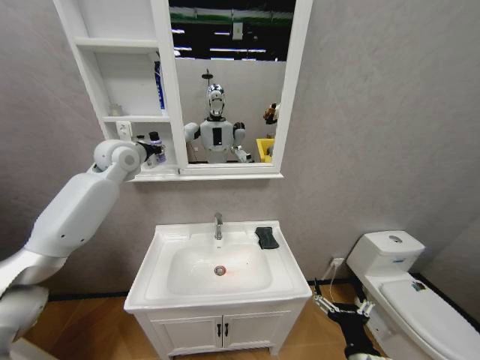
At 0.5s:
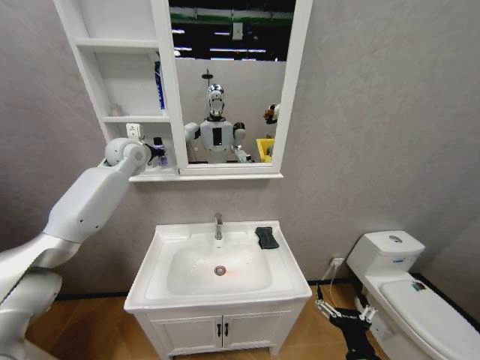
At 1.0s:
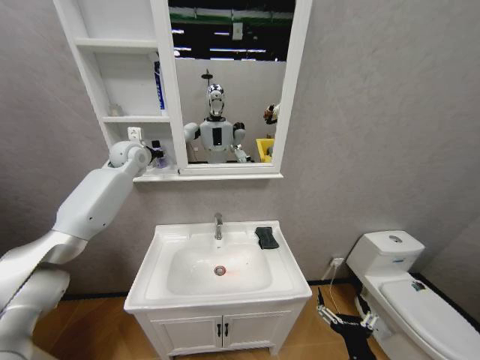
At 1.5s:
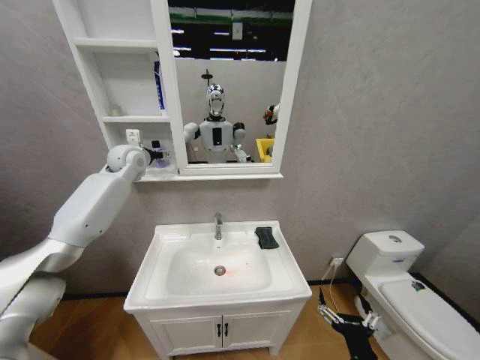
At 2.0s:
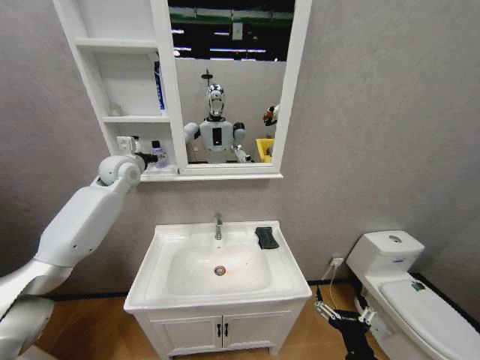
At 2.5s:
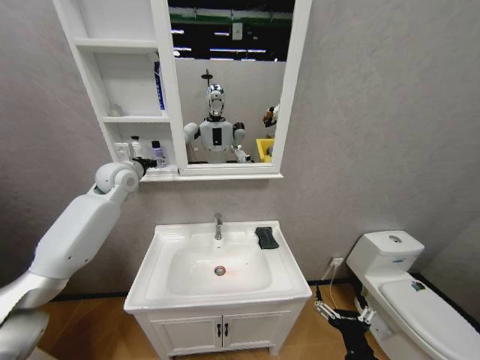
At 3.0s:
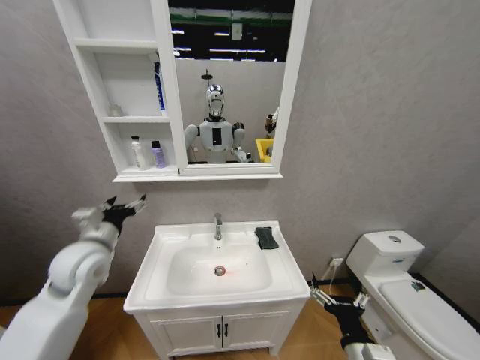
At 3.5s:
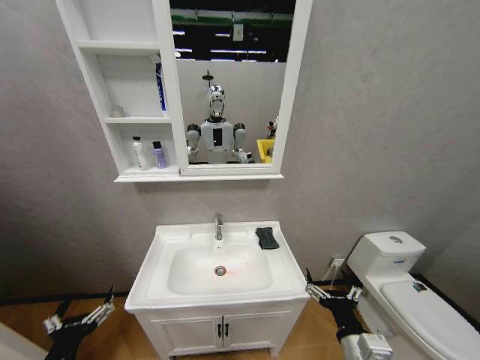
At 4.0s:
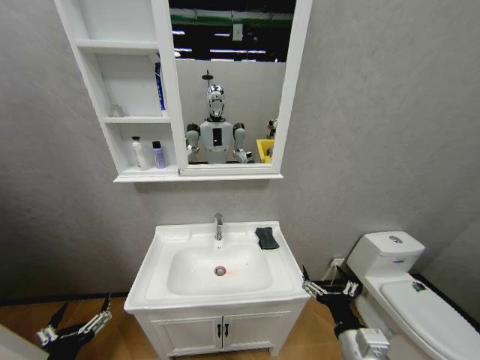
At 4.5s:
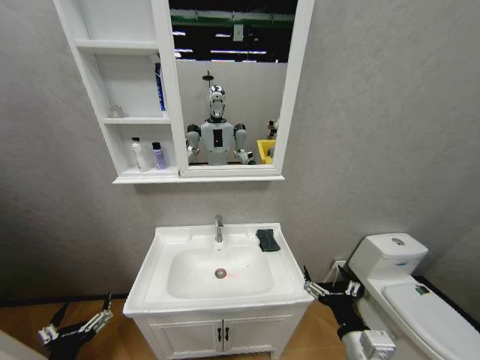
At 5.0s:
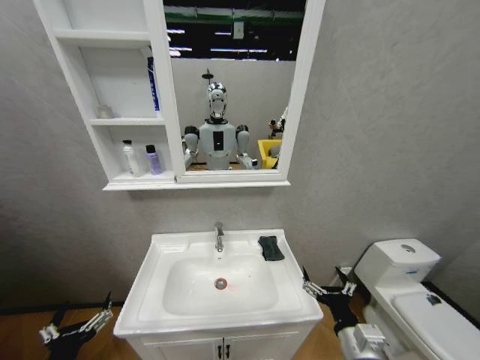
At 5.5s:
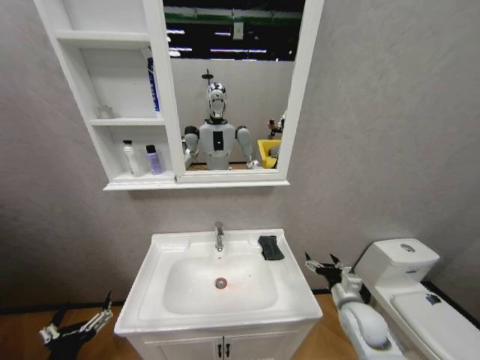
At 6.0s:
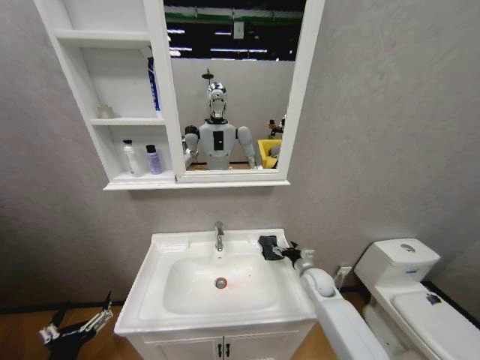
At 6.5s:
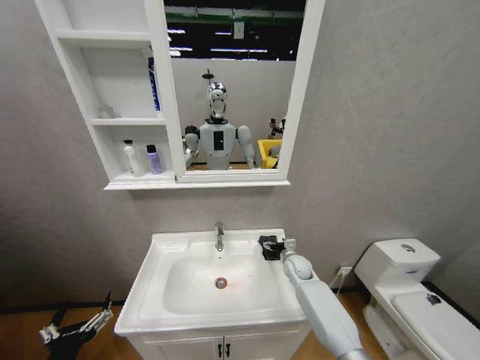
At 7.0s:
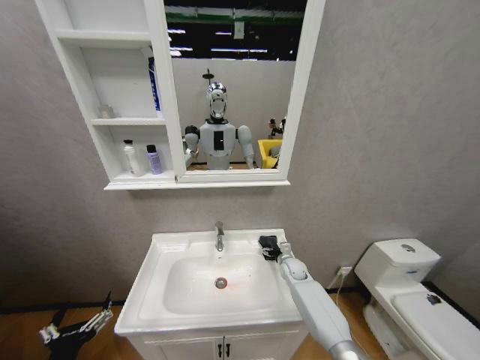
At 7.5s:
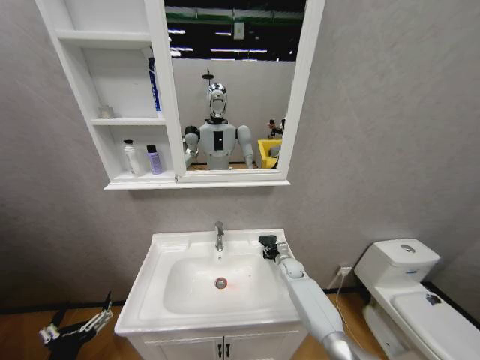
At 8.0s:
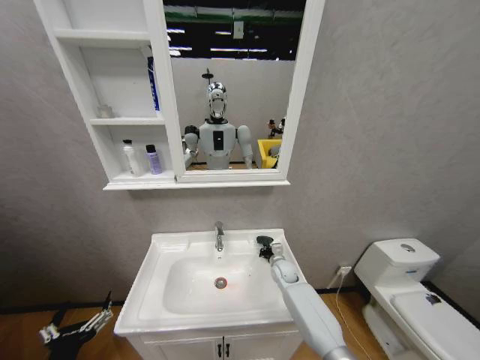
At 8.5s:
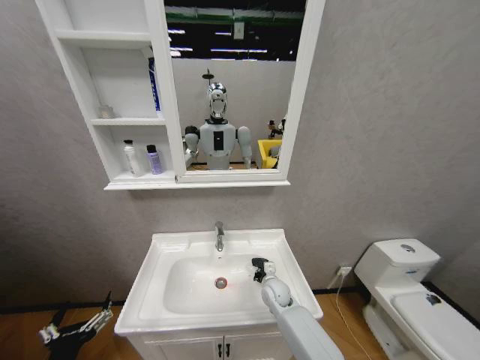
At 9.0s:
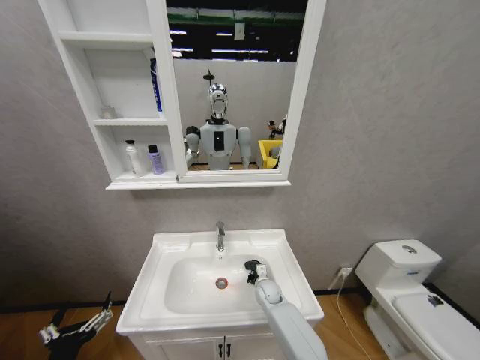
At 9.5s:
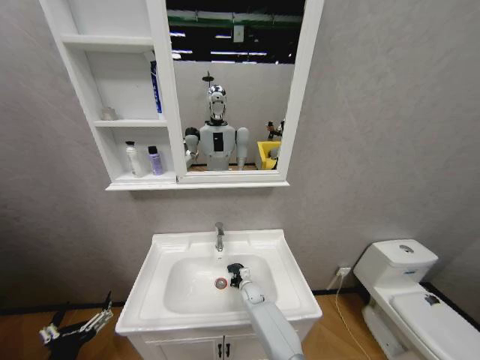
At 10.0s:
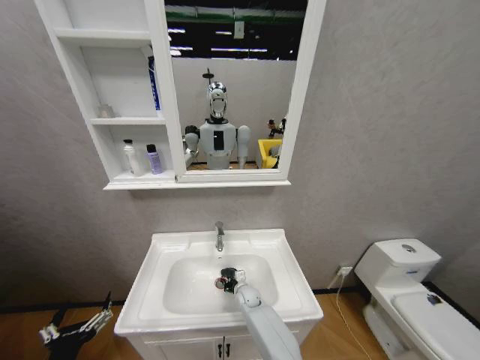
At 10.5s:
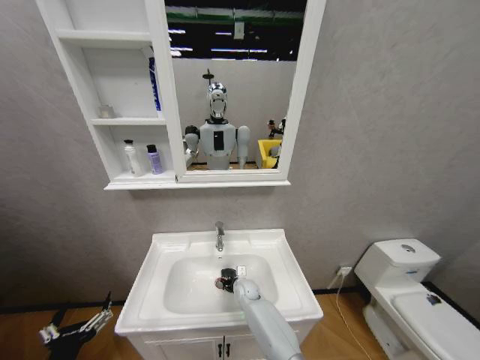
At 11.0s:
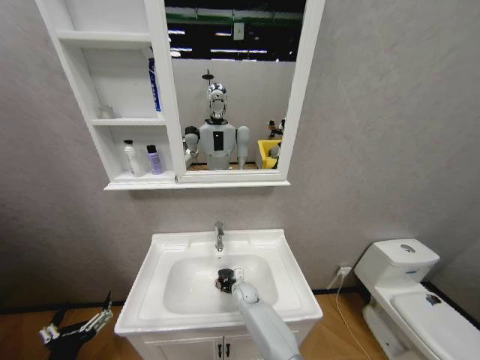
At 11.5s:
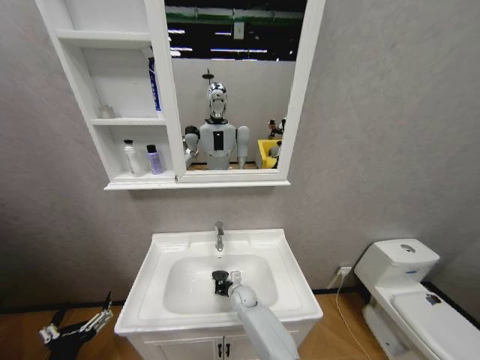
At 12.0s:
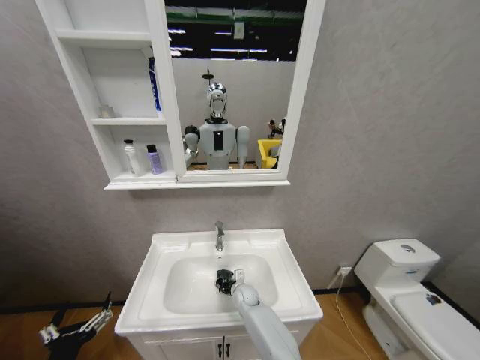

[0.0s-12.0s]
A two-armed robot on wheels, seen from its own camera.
Task of the whole recording: Move facial cleanser and shampoo from washbasin to cabinet, then wipe washbasin with towel.
0.0s to 2.0s: The left gripper changes place by roughly 5 cm, and opens up.
2.0s to 4.0s: The left gripper moves backward and downward, approximately 50 cm, while the right gripper ends up about 5 cm from where it was.
4.0s to 6.0s: The right gripper goes some 30 cm forward.
6.0s to 8.0s: The right gripper is displaced to the left and forward by about 15 cm, and closes up.
8.0s to 10.0s: The right gripper goes about 15 cm to the left and downward.

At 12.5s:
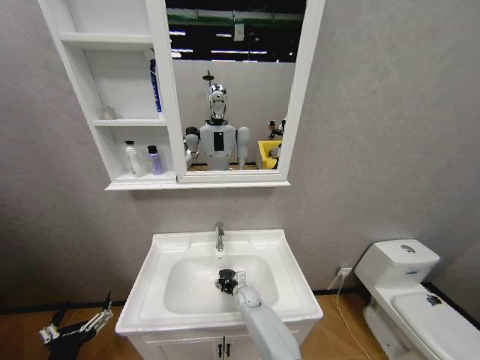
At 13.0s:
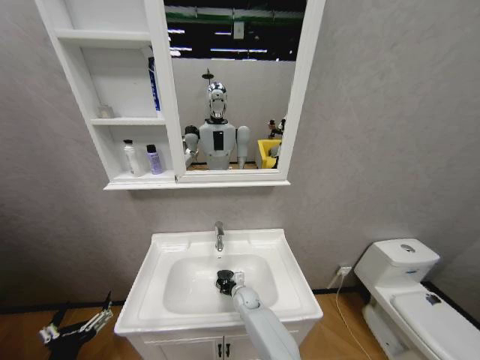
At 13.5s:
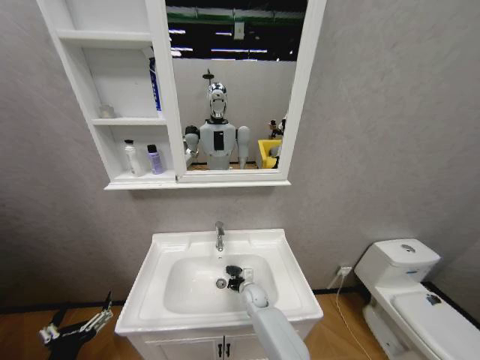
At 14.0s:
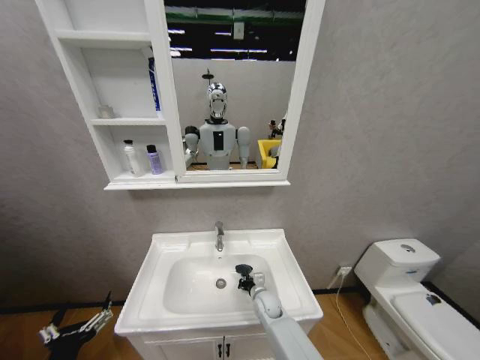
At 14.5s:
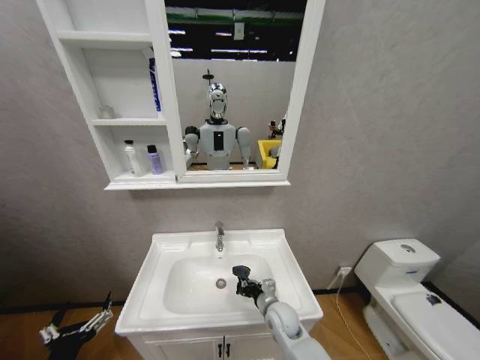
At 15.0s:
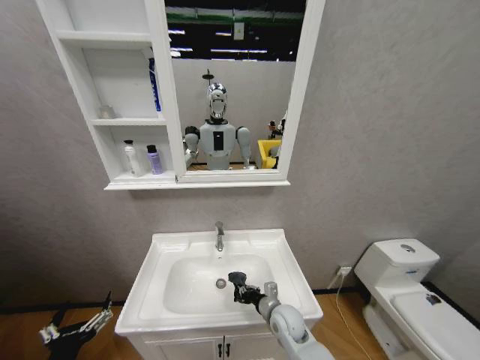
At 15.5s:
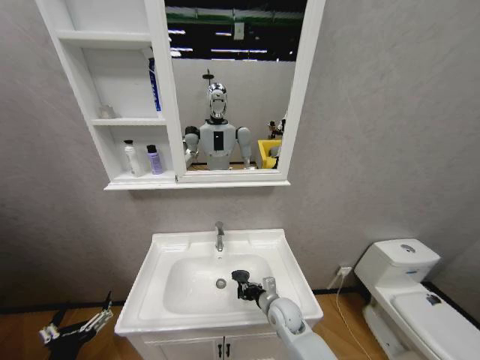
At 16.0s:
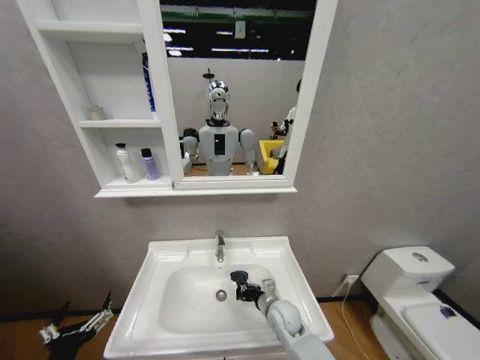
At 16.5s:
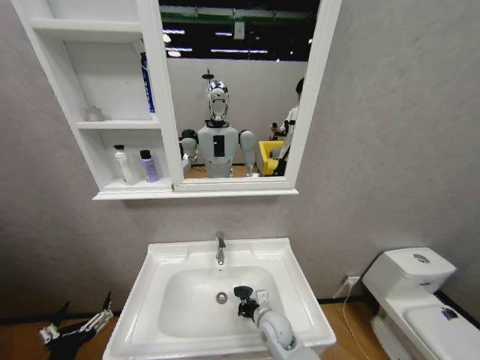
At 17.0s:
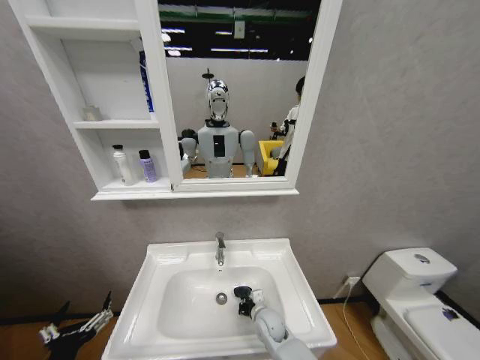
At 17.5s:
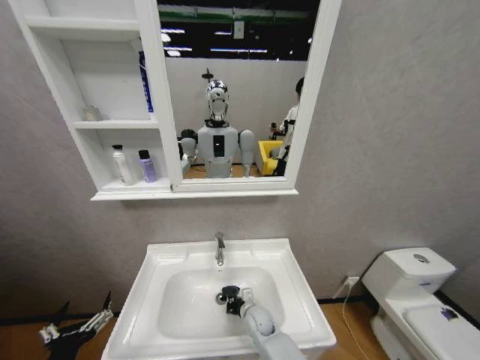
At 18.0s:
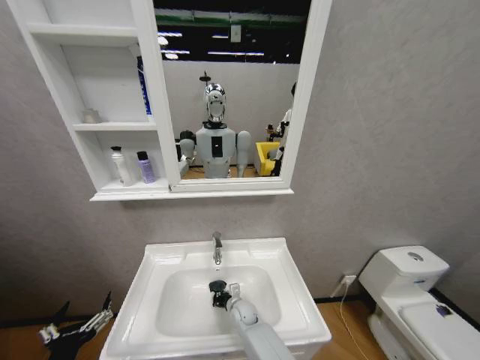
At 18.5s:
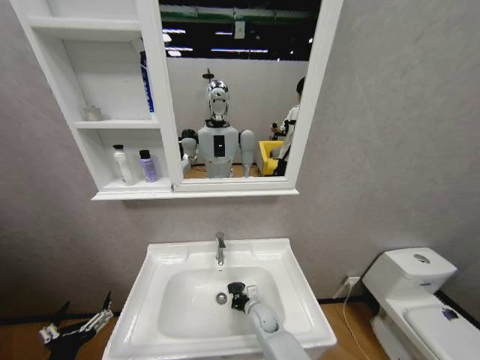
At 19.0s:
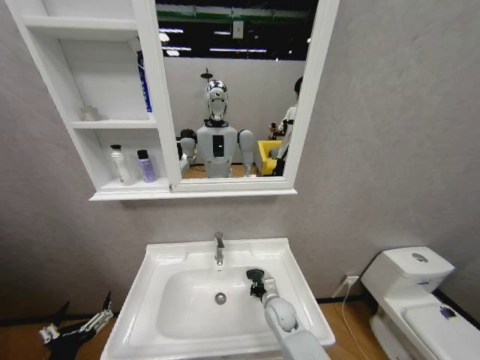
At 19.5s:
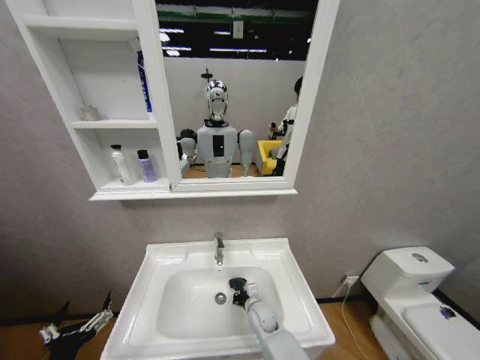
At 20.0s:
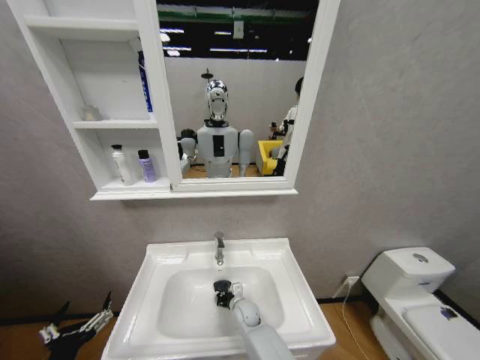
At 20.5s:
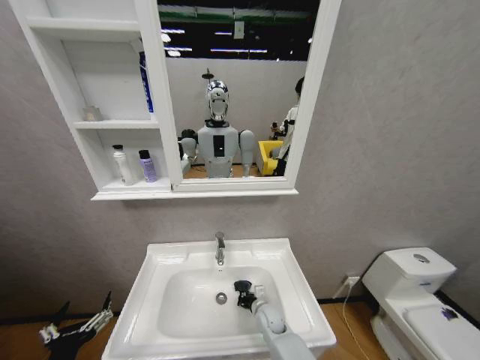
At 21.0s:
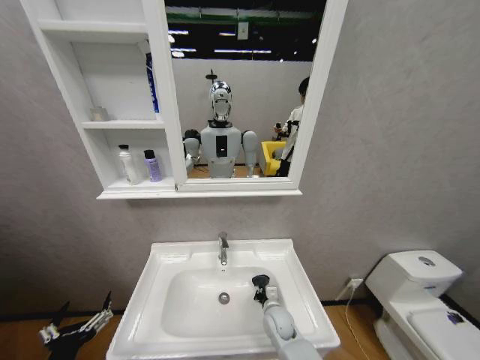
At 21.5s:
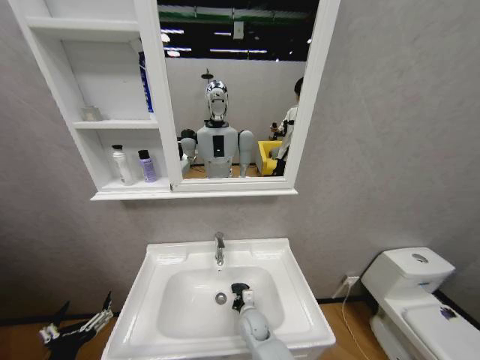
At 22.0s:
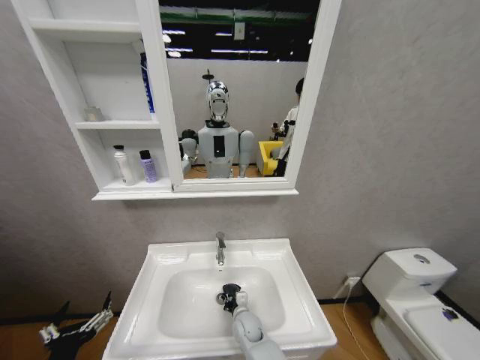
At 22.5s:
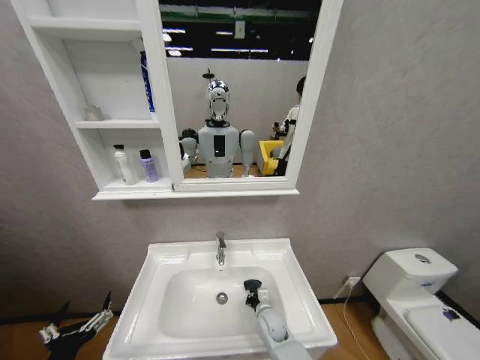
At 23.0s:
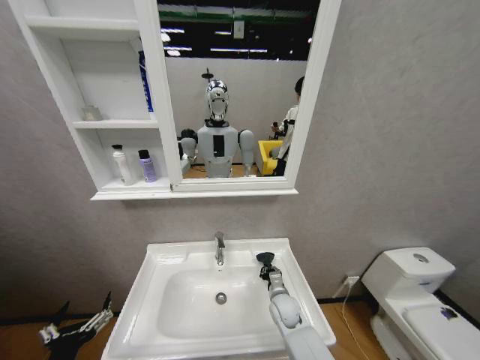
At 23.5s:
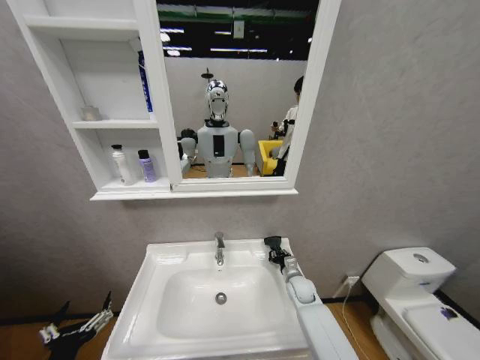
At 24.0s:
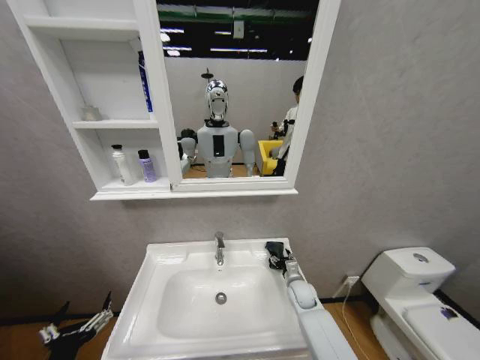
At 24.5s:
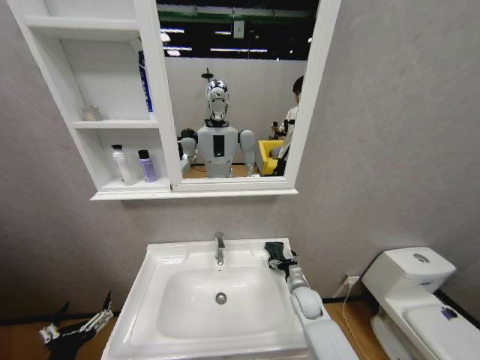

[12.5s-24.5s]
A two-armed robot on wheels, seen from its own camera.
Task of the whole recording: Move facial cleanser and shampoo from washbasin to cabinet, then wipe washbasin with towel.
12.5s to 14.5s: The right gripper travels backward, upward and to the right by approximately 15 cm.
16.5s to 18.5s: The right gripper heads downward and forward, covering roughly 10 cm.
18.5s to 20.5s: The right gripper goes left and right, about 10 cm each way, reversing 2 times.
20.5s to 22.5s: The right gripper reaches approximately 10 cm to the left, then returns.
22.5s to 24.5s: The right gripper moves to the right and upward, some 15 cm, and opens.

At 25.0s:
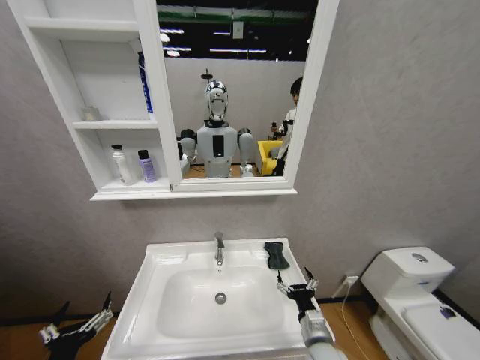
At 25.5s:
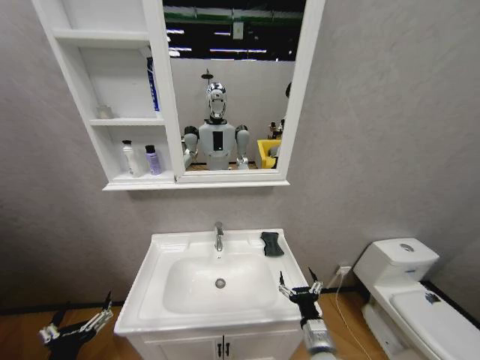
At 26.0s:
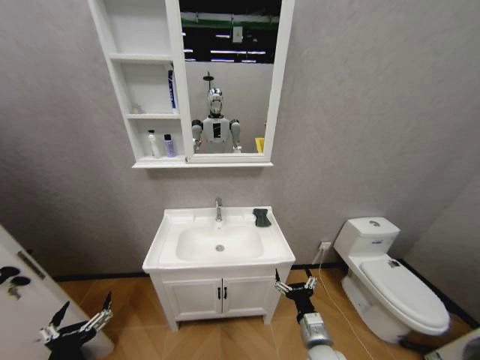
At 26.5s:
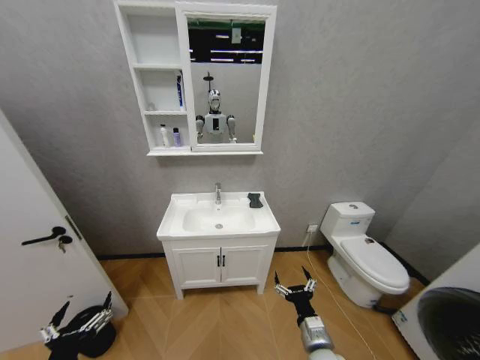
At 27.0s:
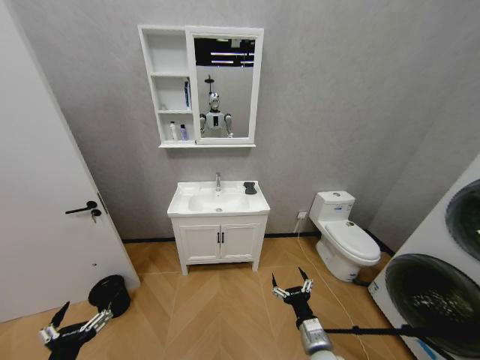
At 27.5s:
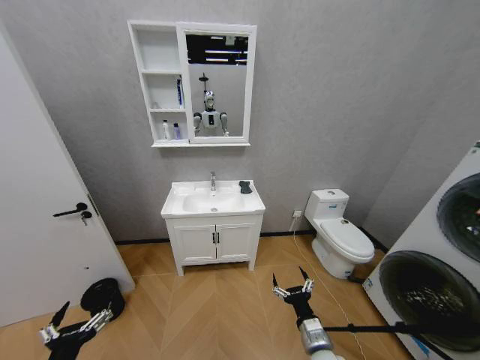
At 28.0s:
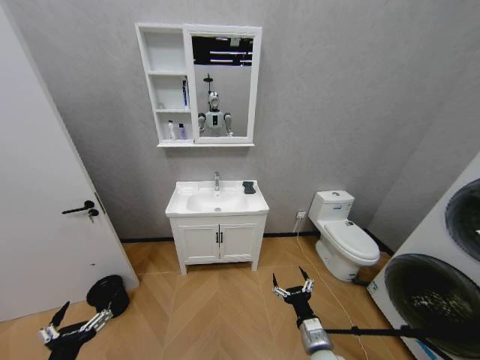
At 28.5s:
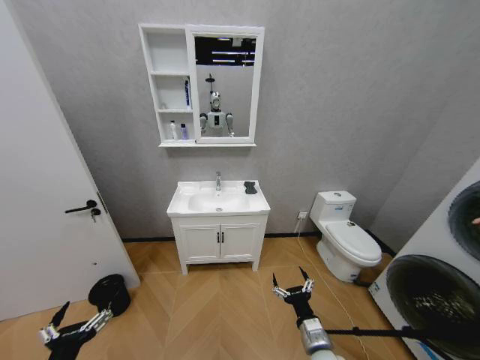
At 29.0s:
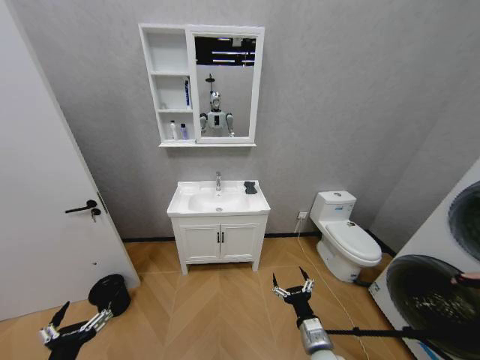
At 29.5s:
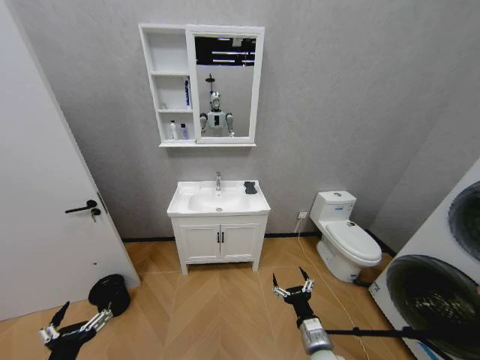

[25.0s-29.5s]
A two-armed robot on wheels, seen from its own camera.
Task of the whole recording: Move facial cleanser and shampoo from washbasin to cabinet, then wipe washbasin with towel.
27.0s to 29.5s: The two grippers keep their place.
